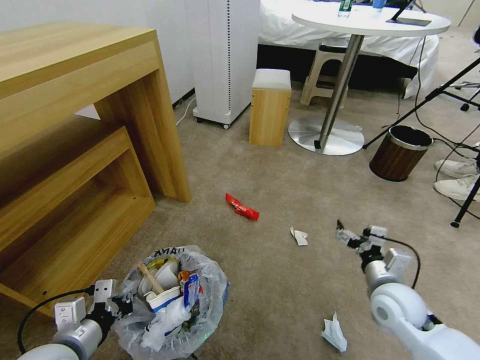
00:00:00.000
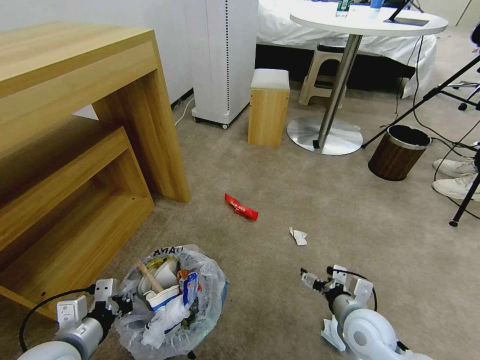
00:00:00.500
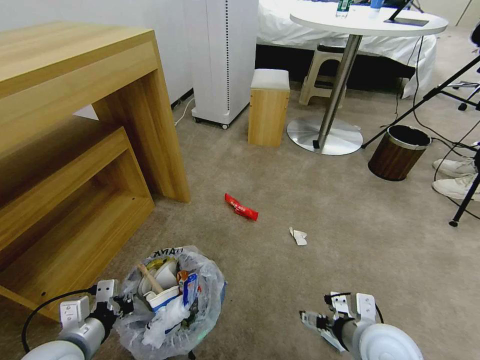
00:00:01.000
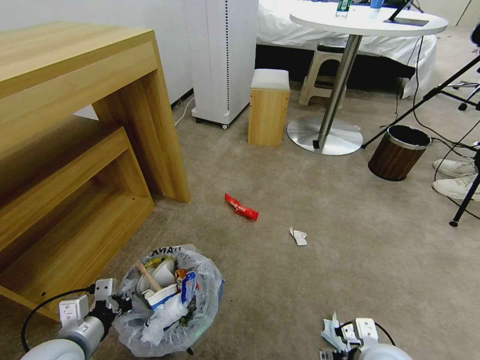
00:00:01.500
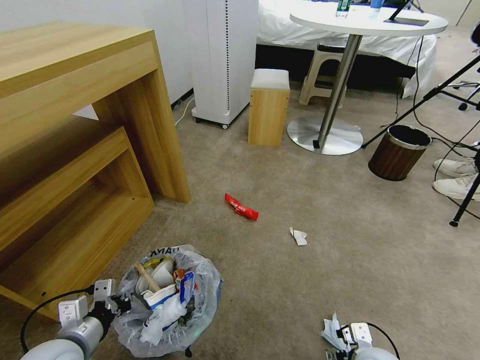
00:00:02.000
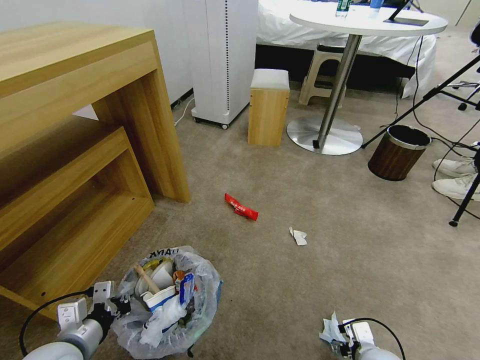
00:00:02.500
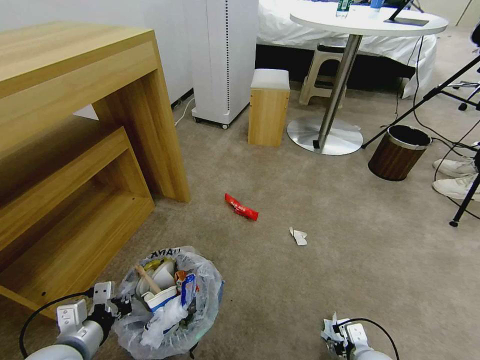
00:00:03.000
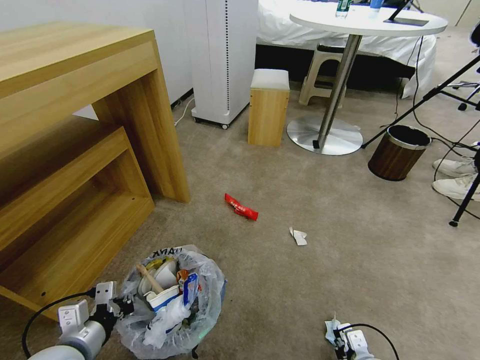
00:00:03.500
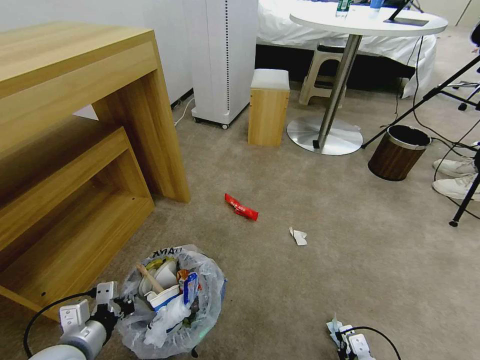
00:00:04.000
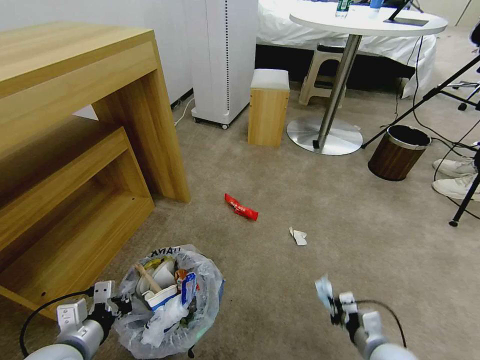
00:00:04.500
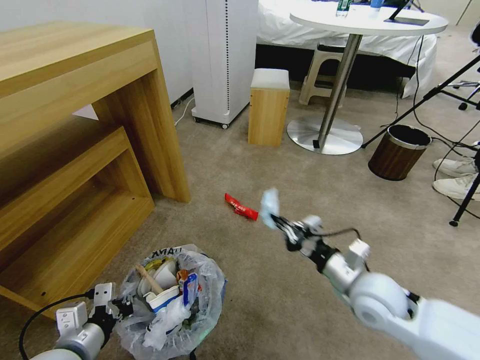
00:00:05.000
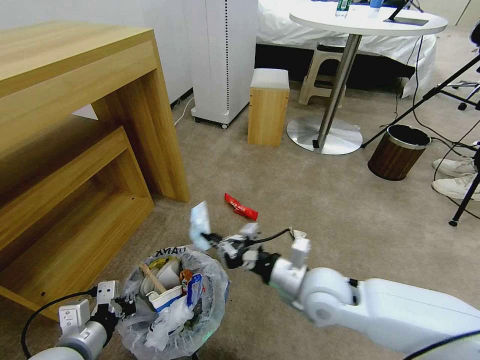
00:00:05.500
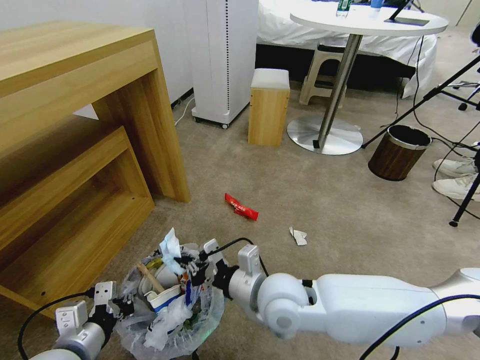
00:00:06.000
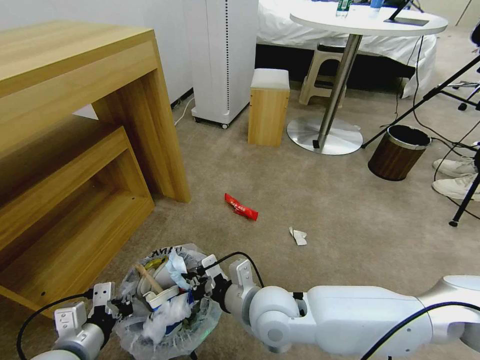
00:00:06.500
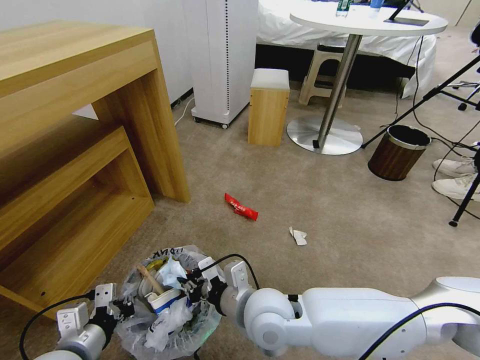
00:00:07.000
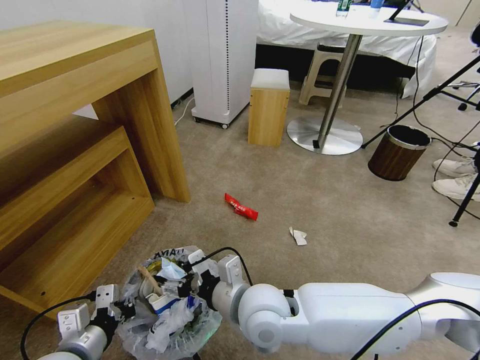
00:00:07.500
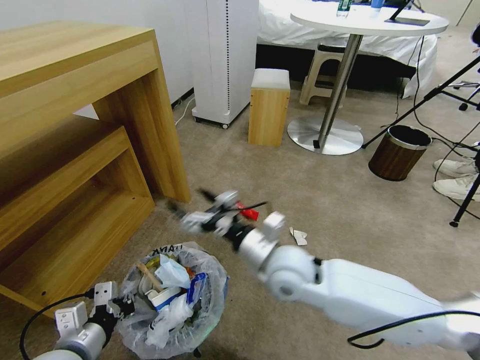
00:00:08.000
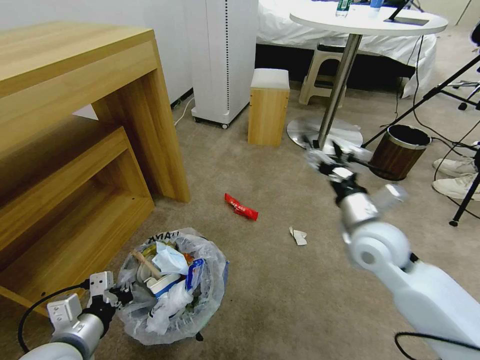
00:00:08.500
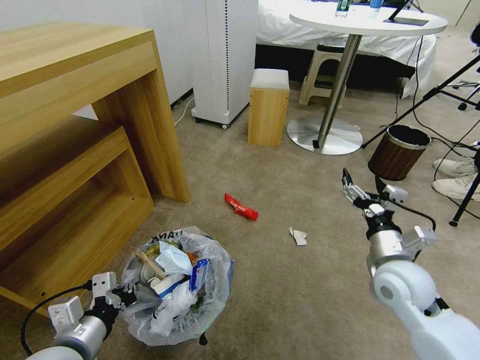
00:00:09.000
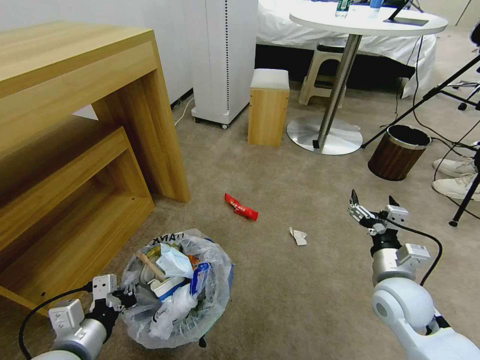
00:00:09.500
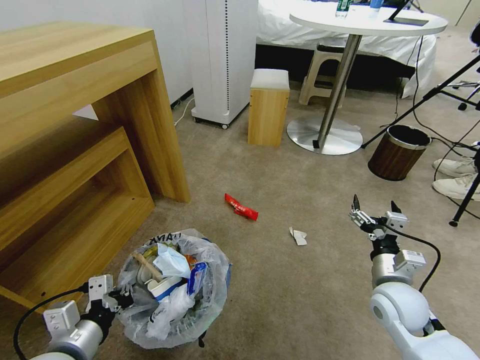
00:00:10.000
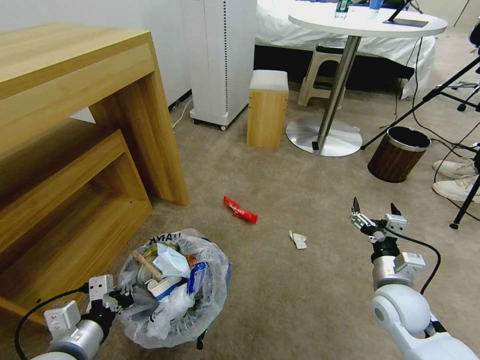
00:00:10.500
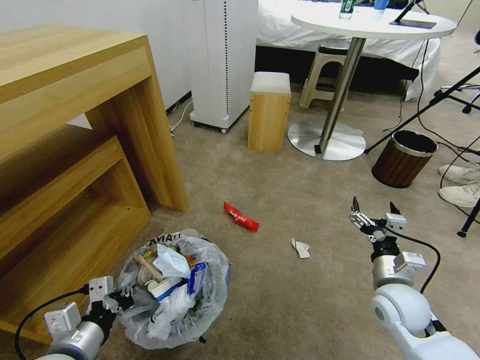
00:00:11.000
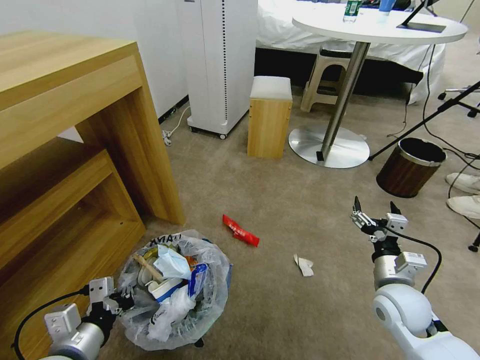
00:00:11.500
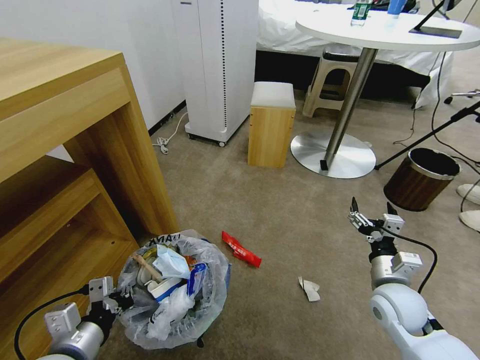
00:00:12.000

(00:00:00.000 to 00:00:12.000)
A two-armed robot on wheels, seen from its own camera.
Task of the whole recording: Pick up the trash bin and place the garbage on the floor into it.
00:00:00.000 - 00:00:02.000: The right gripper shifts approximately 15 cm backward and downward.
00:00:02.000 - 00:00:04.000: The right gripper moves downward, about 10 cm, and closes.
00:00:04.000 - 00:00:06.000: The right gripper is displaced to the left, upward and forward by some 35 cm.
00:00:06.000 - 00:00:08.000: The right gripper travels forward by roughly 5 cm, and opens.
00:00:08.000 - 00:00:10.000: The right gripper shifts about 20 cm to the right.

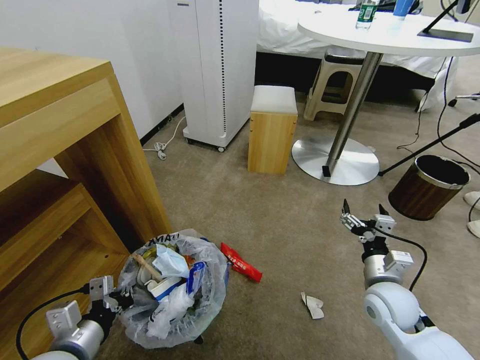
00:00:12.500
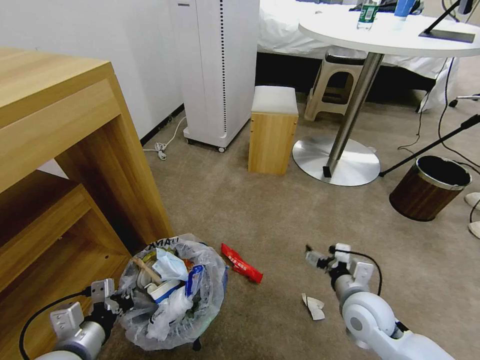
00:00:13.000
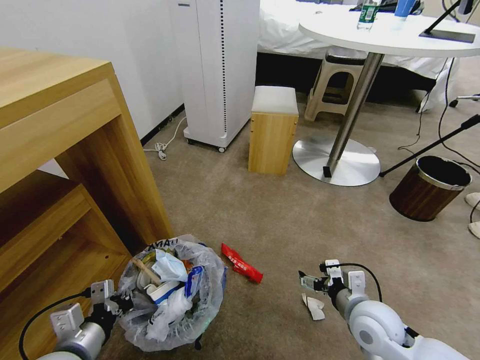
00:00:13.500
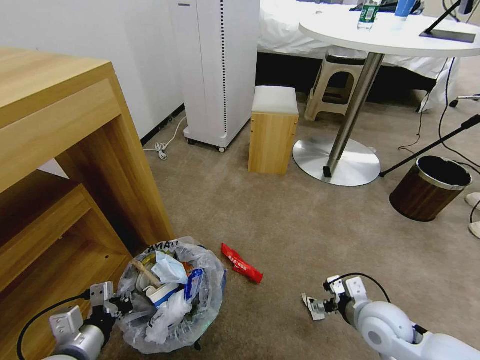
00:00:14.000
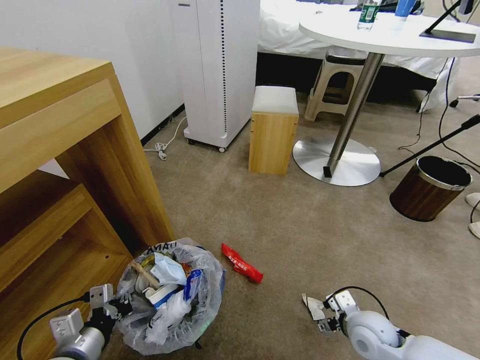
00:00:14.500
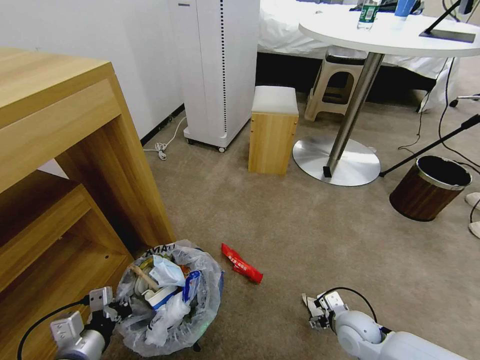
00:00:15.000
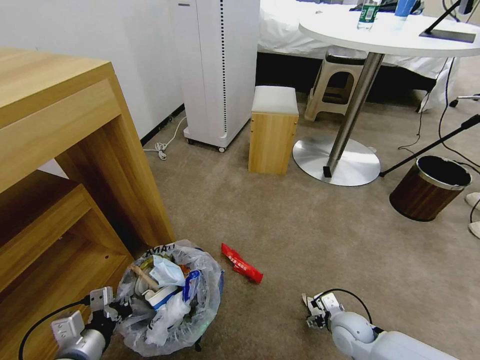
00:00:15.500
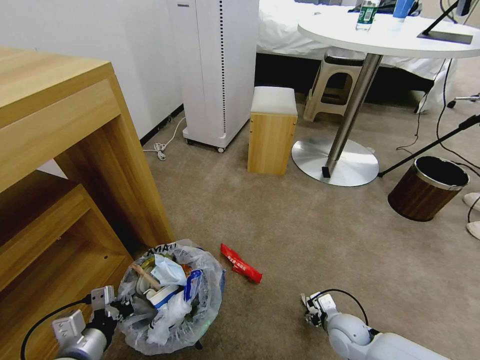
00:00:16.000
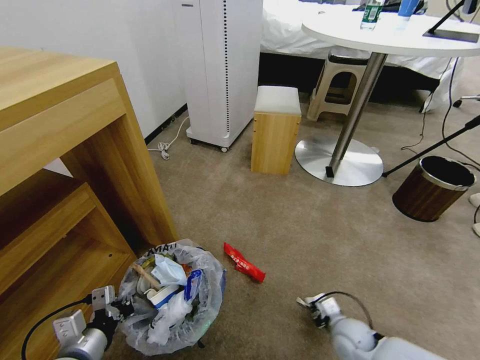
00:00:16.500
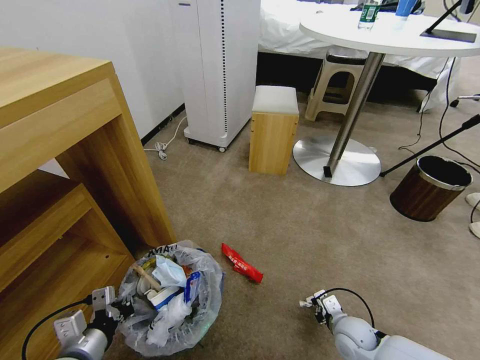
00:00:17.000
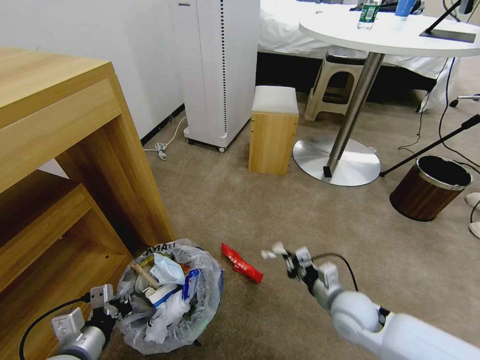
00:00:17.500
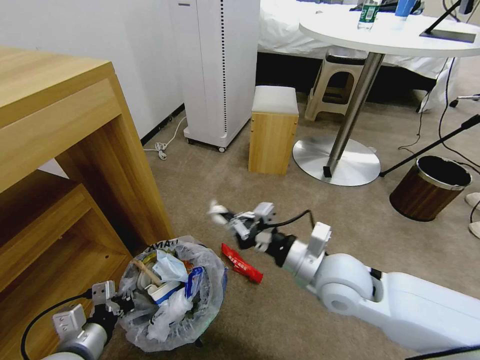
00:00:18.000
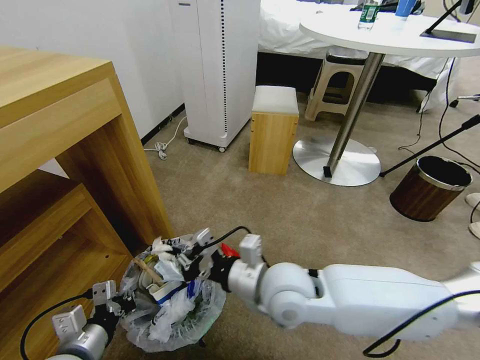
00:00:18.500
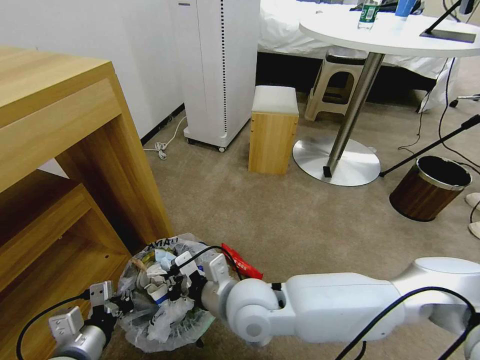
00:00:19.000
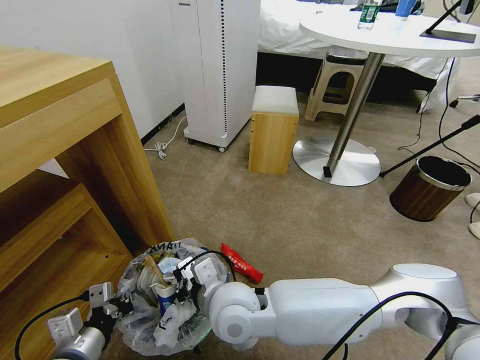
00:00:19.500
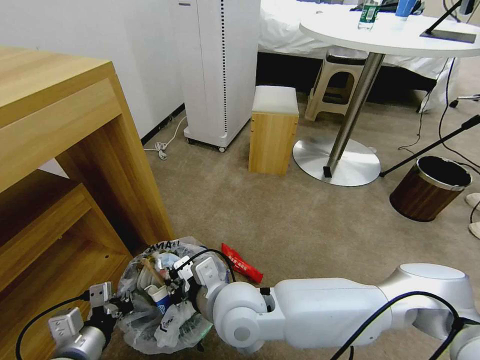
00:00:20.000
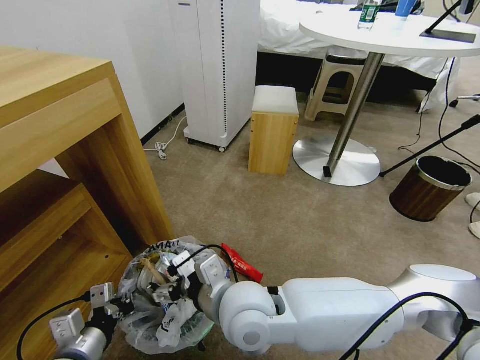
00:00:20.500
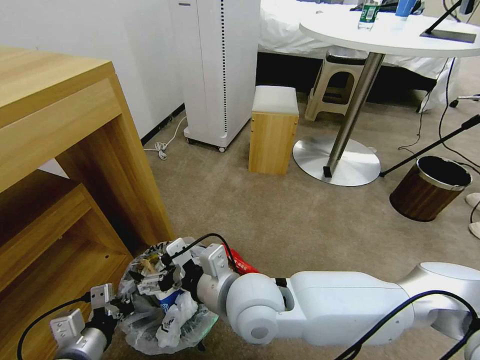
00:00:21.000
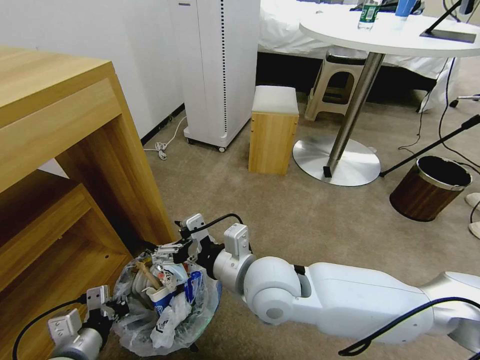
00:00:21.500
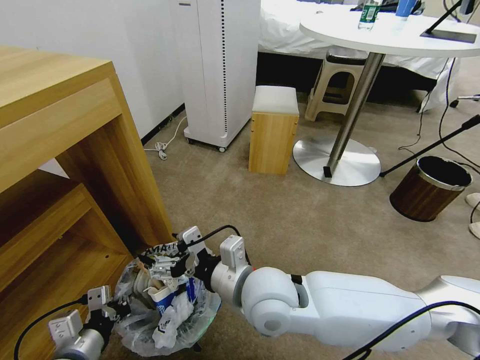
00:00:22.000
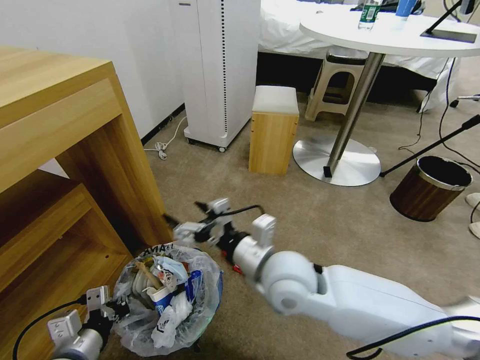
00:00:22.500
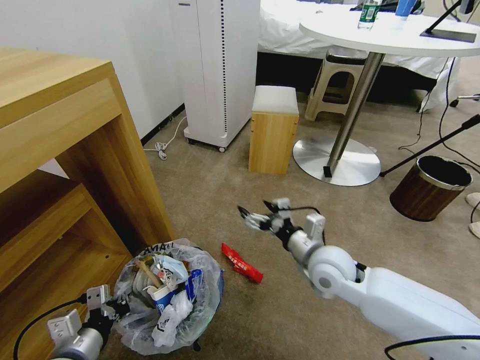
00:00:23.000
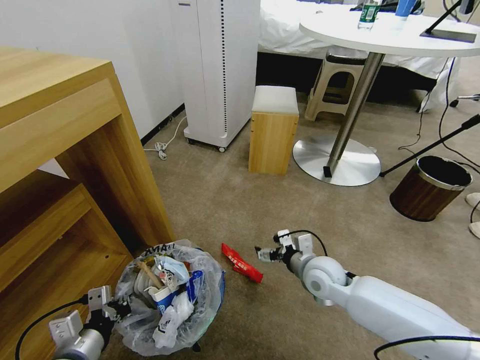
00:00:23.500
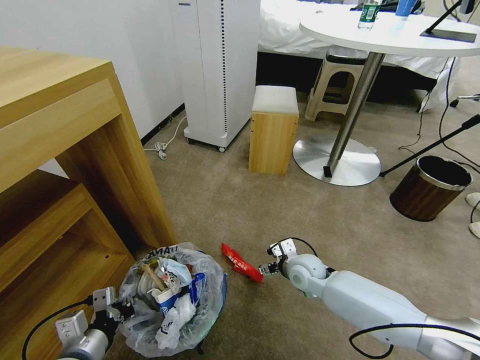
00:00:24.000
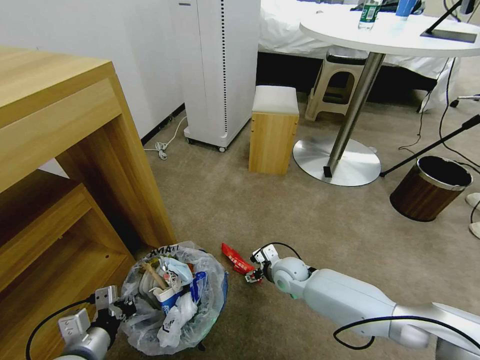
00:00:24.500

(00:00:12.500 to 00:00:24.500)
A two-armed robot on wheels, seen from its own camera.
Task of the whole recording: Pick up the trash bin and place the garbage on the floor into it.
00:00:12.500 - 00:00:14.500: The right gripper is displaced downward by roughly 5 cm.
00:00:14.500 - 00:00:16.500: The right gripper travels downward by approximately 10 cm, and closes its fingers.
00:00:16.500 - 00:00:18.500: The right gripper heads upward and to the left, covering roughly 35 cm.
00:00:18.500 - 00:00:20.500: The right gripper shifts approximately 5 cm to the left, and opens.
00:00:20.500 - 00:00:22.500: The right gripper moves to the right, roughly 5 cm.
00:00:22.500 - 00:00:24.500: The right gripper heads downward and forward, covering about 25 cm.

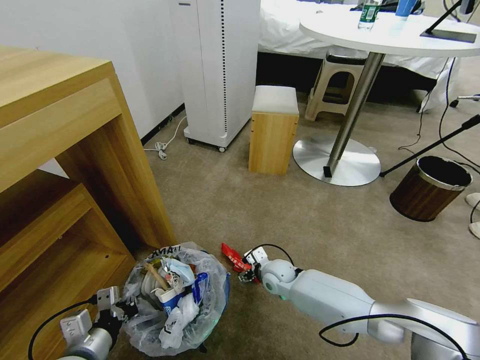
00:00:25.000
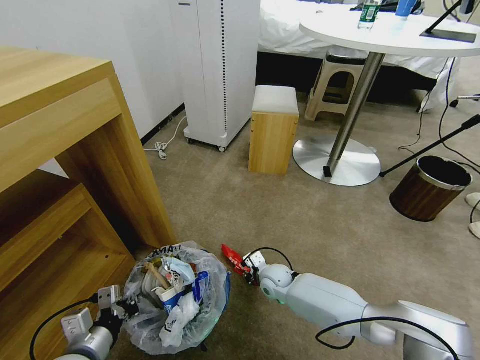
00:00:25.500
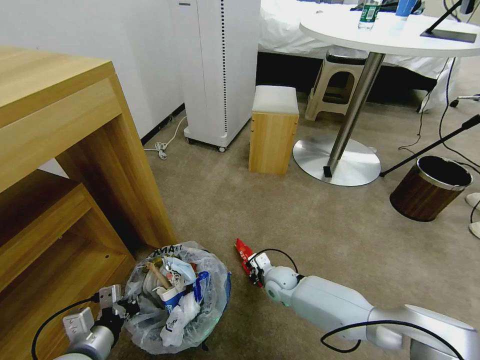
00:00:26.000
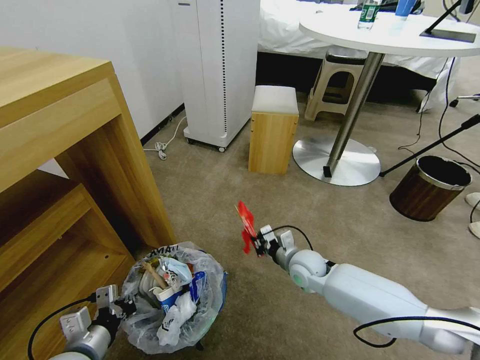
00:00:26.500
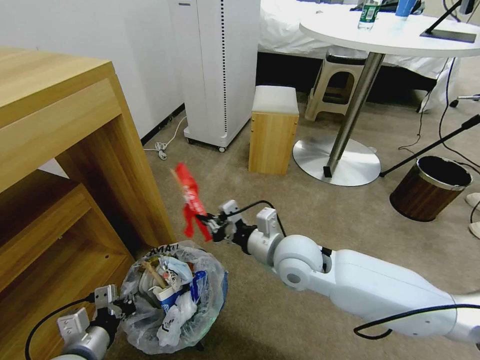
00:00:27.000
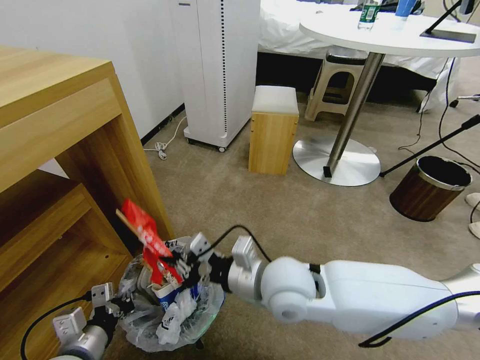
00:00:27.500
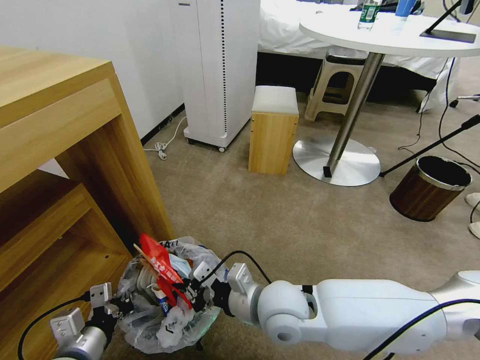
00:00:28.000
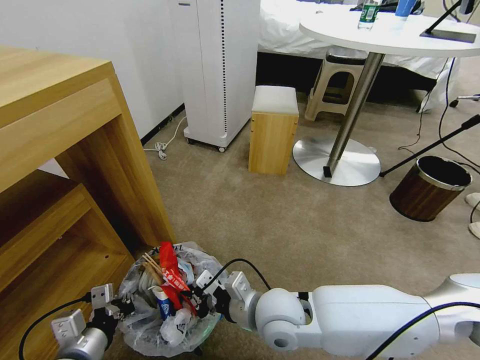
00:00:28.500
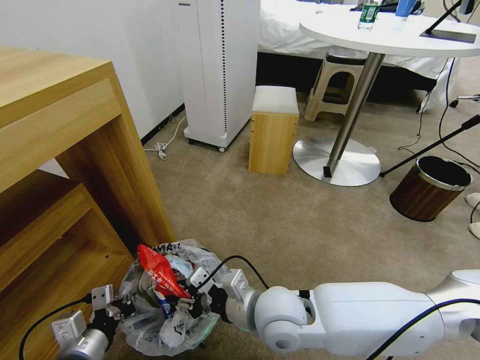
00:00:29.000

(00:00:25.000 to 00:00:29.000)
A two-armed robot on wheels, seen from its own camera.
Task of the whole recording: Pick up the trash bin and place the garbage on the floor into it.
00:00:25.000 - 00:00:27.000: The right gripper goes about 25 cm upward, and closes its fingers.
00:00:27.000 - 00:00:29.000: The right gripper is displaced backward by about 10 cm, and opens up.
